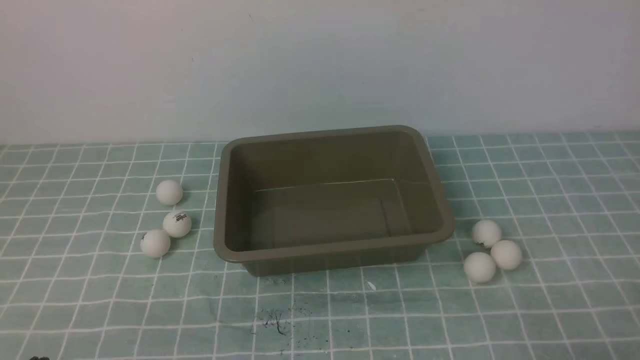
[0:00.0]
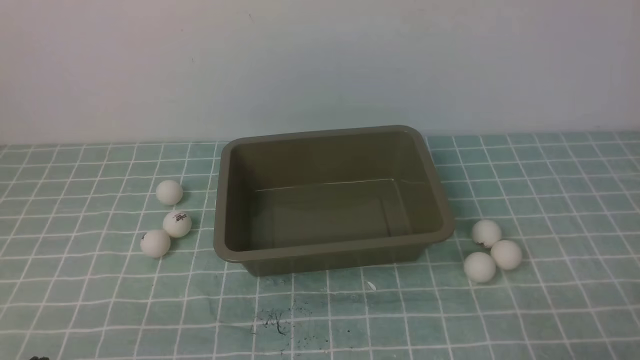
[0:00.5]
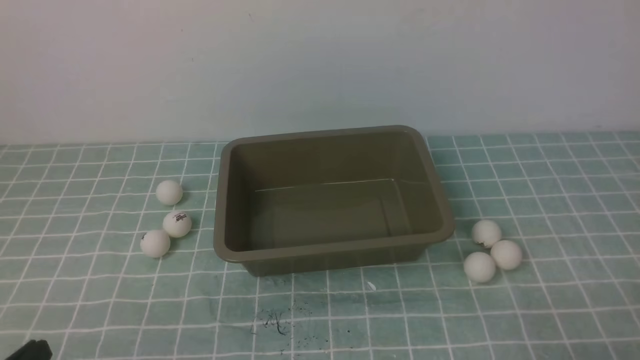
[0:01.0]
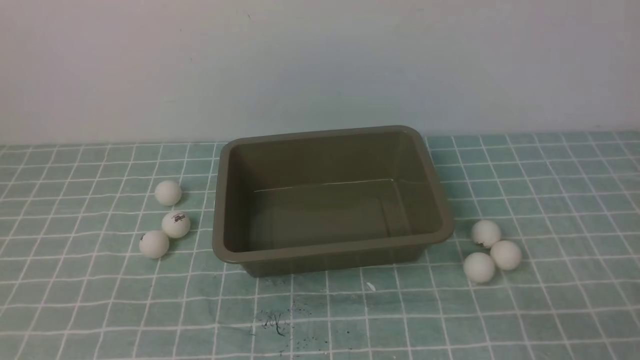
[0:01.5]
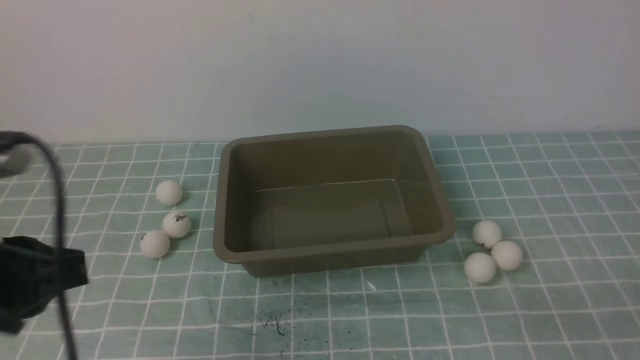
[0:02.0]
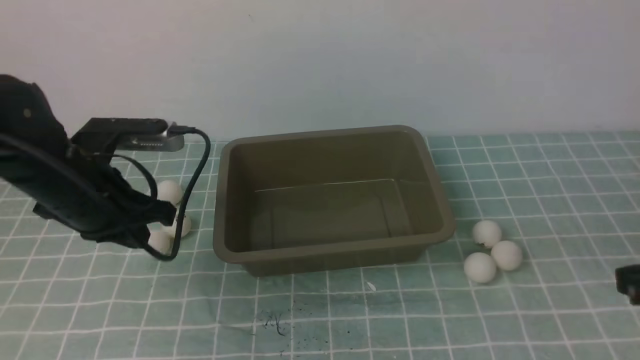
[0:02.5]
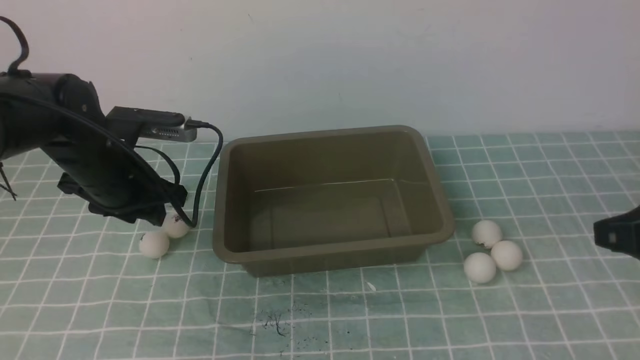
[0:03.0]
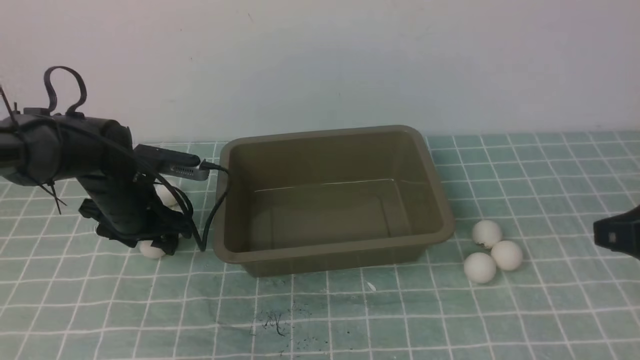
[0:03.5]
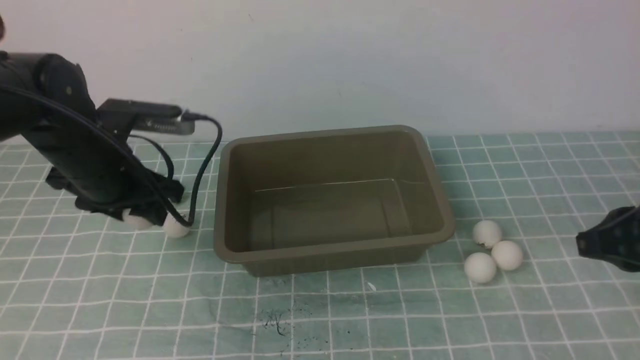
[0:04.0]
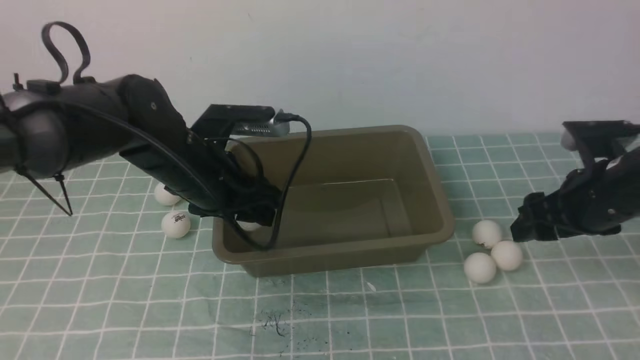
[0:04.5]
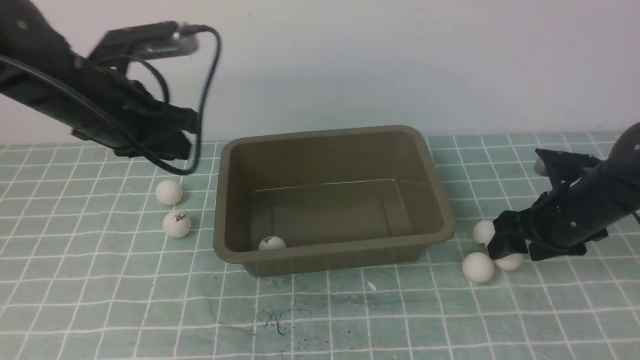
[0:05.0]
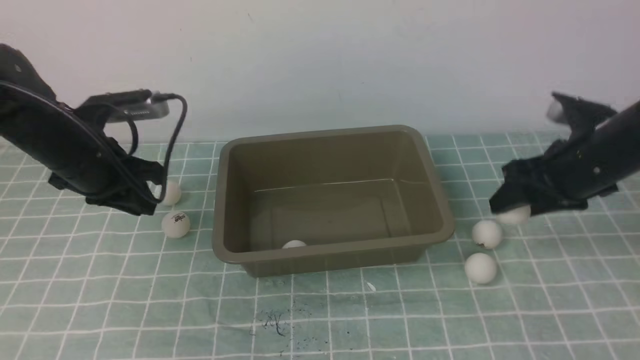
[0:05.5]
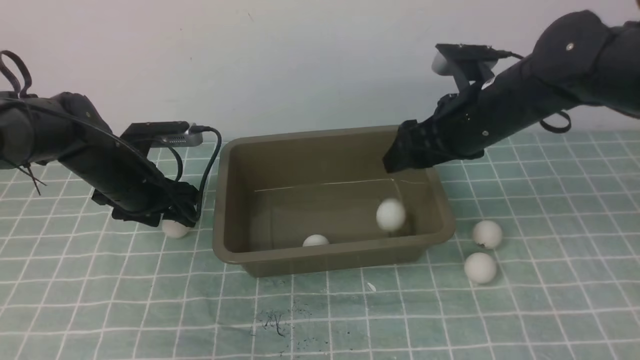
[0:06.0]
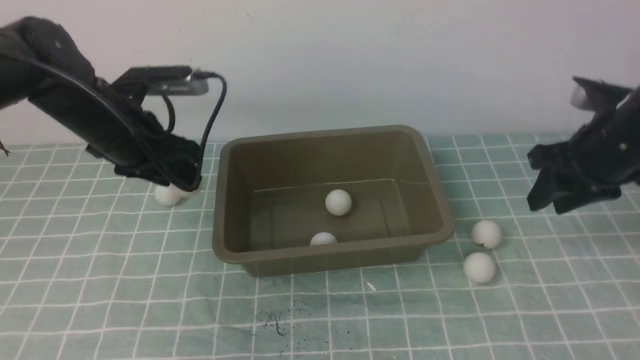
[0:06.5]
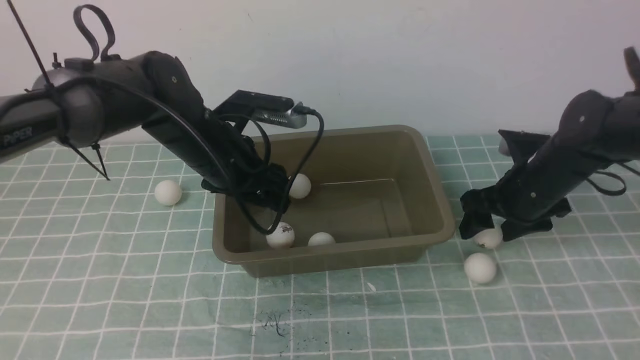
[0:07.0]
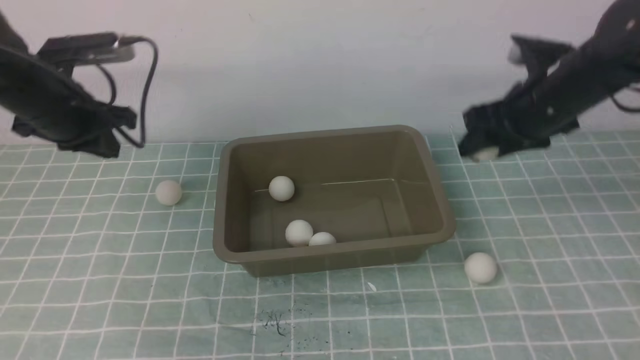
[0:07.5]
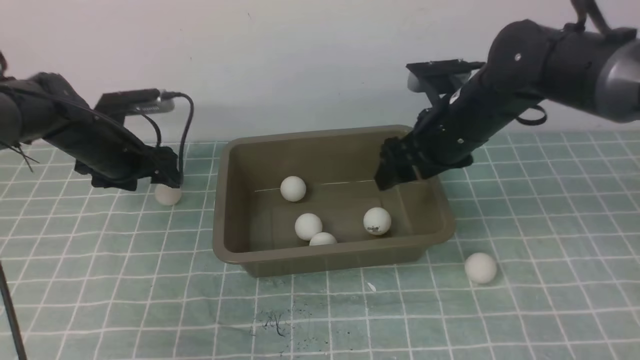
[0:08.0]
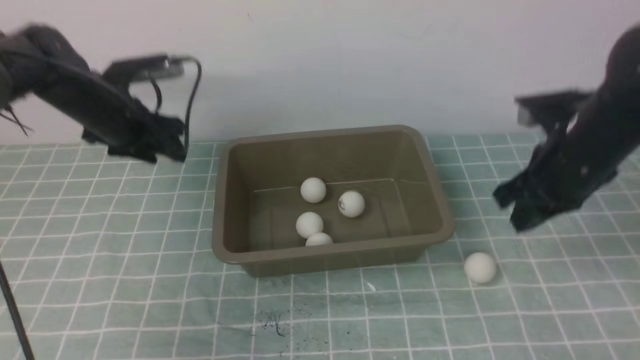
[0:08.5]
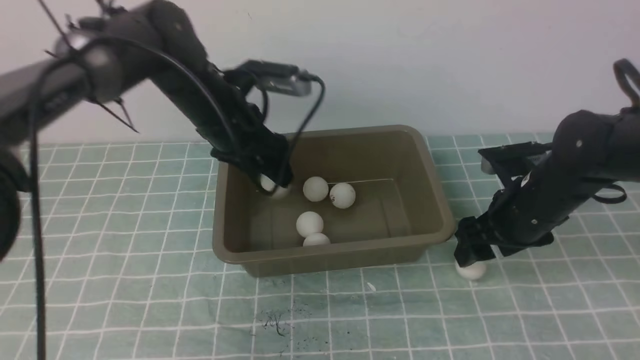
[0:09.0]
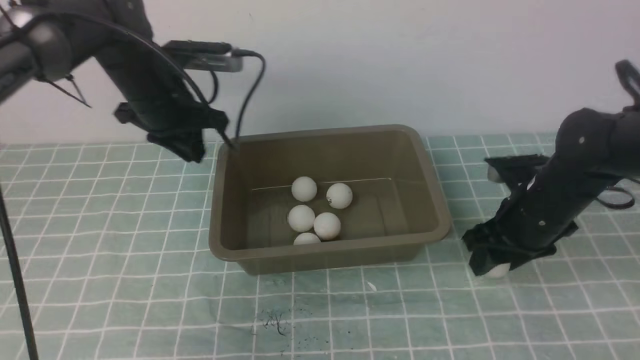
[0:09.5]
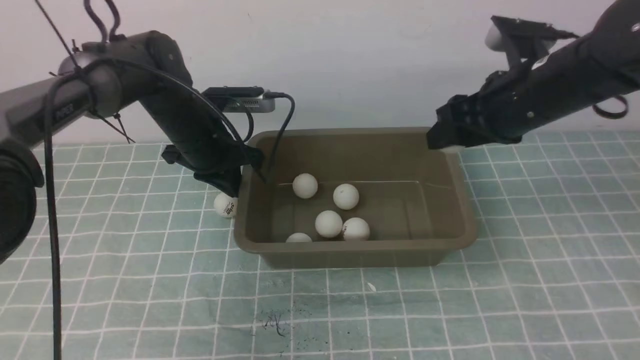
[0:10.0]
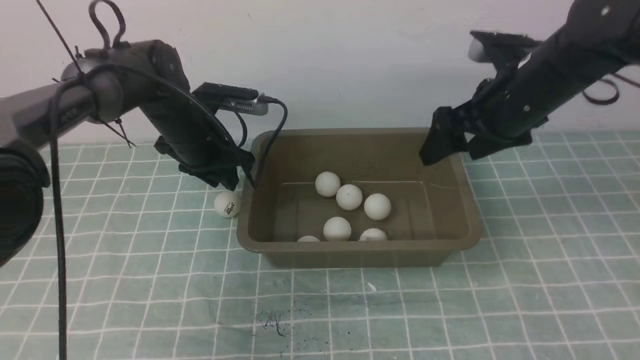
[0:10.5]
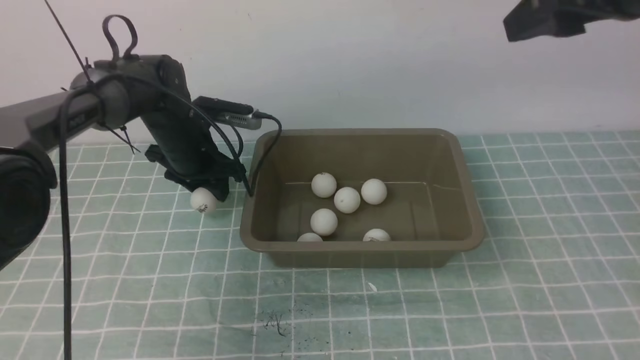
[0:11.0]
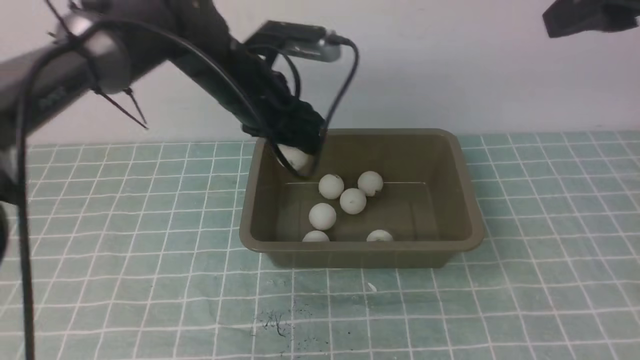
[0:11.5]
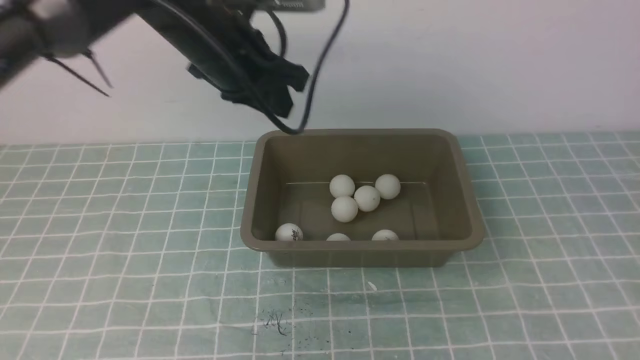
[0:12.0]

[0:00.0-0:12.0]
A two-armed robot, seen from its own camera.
Step, 0:00.0 to 0:04.0: use the left arm to clamp the table tennis ball closest to it.
Step, 0:06.5 to 0:07.0: use the left arm to put the table tennis ball into the box.
Step, 0:08.5 to 0:09.0: use the left arm to put the table tennis ball into the box.
Step, 0:10.5 to 0:11.0: use the left arm to clamp the table tennis ball closest to it.
0:00.0 to 0:02.0: The left gripper moves upward and forward, some 15 cm.
0:02.0 to 0:04.0: The two grippers go some 20 cm forward. The left gripper opens its fingers.
0:04.0 to 0:06.0: The right gripper heads forward and to the left, covering roughly 20 cm, and opens its fingers. The left gripper travels downward and forward by some 10 cm, reaches about 5 cm to the right, then returns, and closes, then reopens.
0:06.0 to 0:08.0: The right gripper travels to the right and back again, roughly 10 cm each way; the left gripper moves about 10 cm to the right and comes back, and closes, then opens again.
0:08.0 to 0:10.0: The left gripper heads to the right, covering approximately 10 cm, and closes its fingers. Meanwhile the right gripper moves approximately 10 cm downward and comes back, and closes, then opens again.
0:10.0 to 0:12.0: The right gripper is displaced backward and upward by about 35 cm, and closes its fingers. Meanwhile the left gripper shifts roughly 15 cm upward, to the right and backward, and opens its fingers.

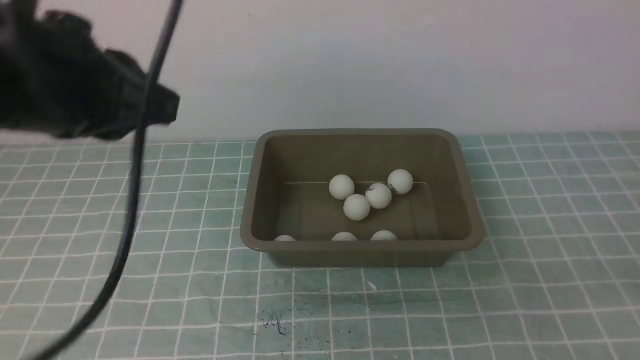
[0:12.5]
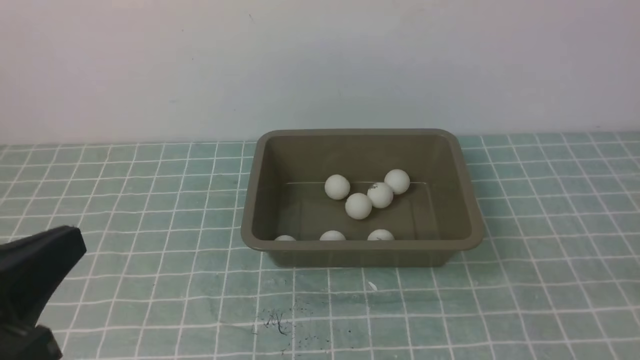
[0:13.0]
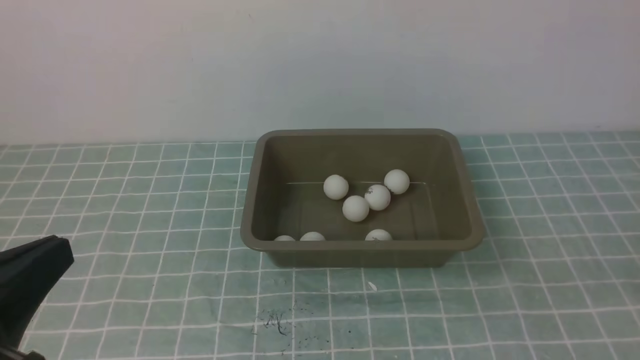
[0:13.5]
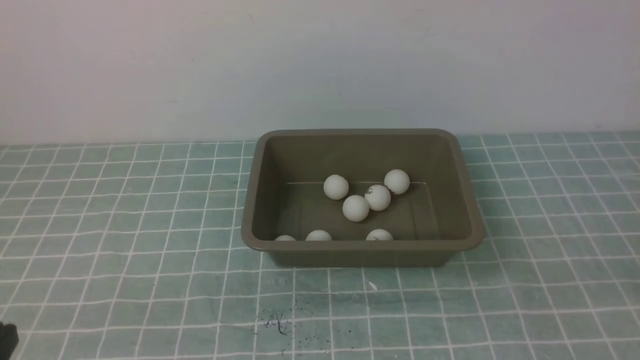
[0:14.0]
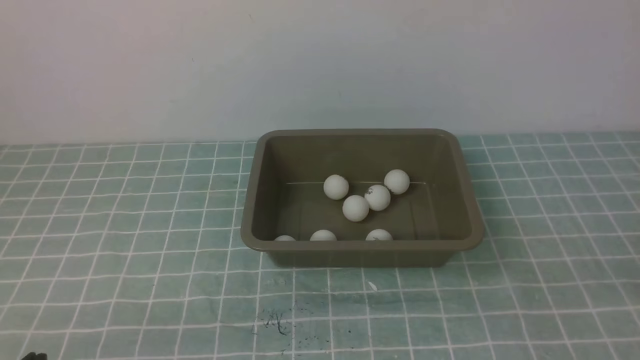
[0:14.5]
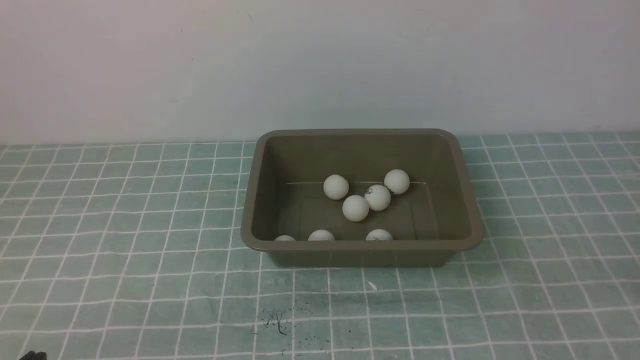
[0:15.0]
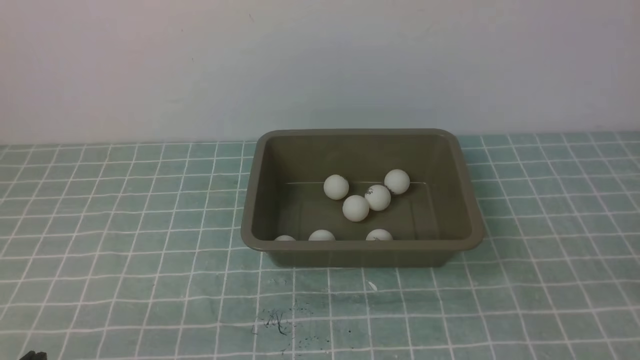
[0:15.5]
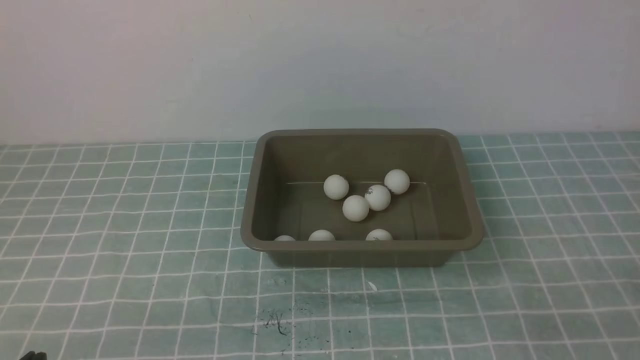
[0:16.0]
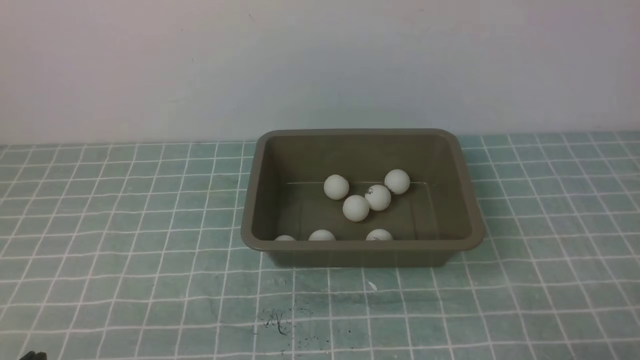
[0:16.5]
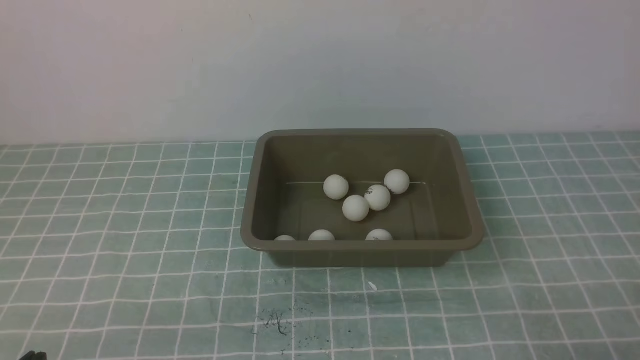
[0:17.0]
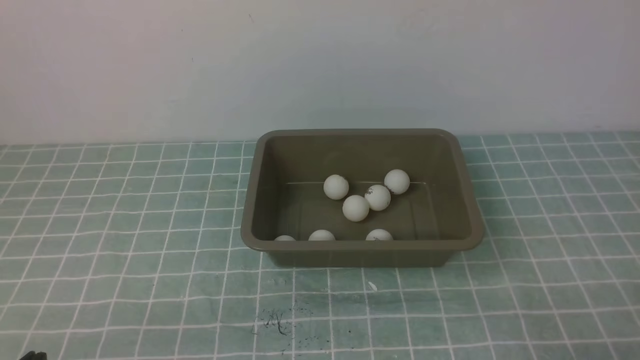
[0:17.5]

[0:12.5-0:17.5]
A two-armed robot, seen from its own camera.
0:12.5 to 0:15.0: The left gripper is displaced downward and backward by about 30 cm.

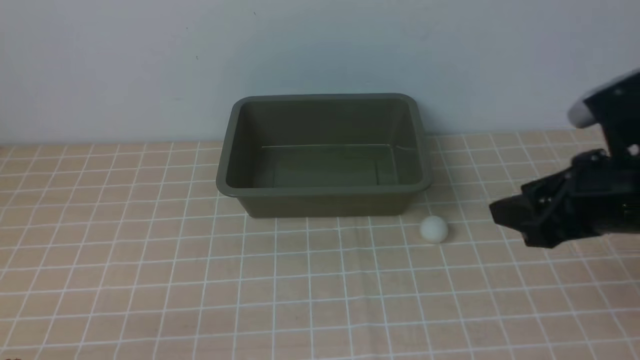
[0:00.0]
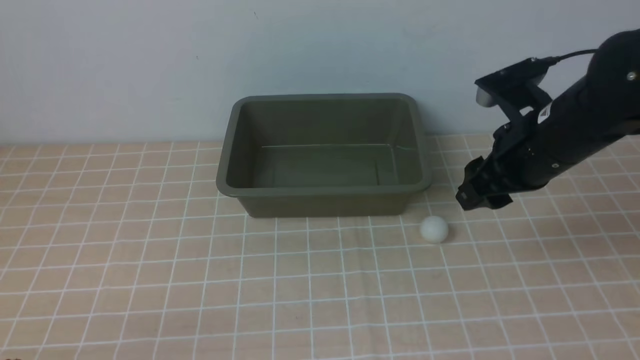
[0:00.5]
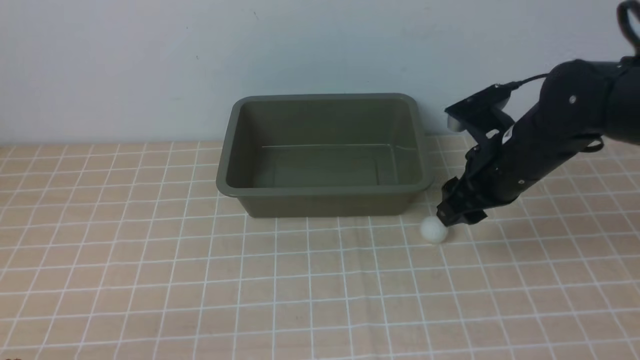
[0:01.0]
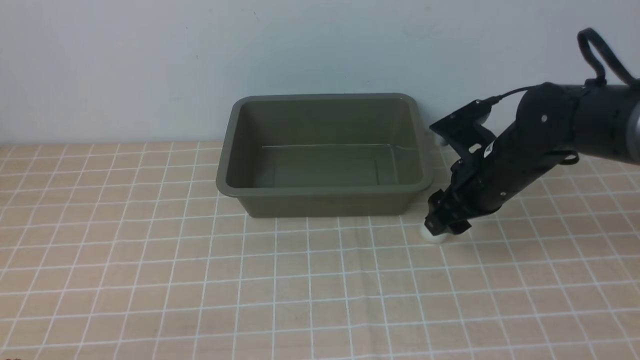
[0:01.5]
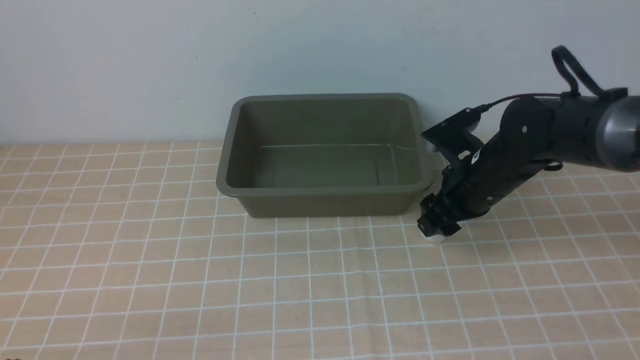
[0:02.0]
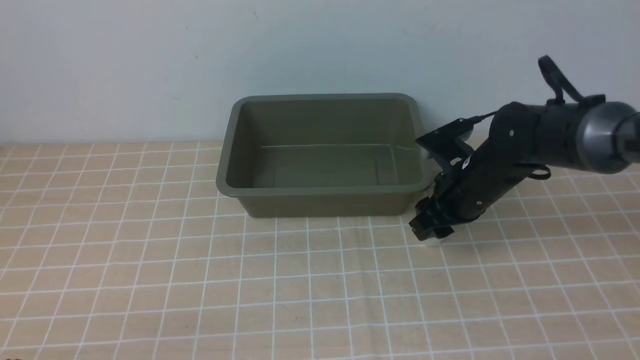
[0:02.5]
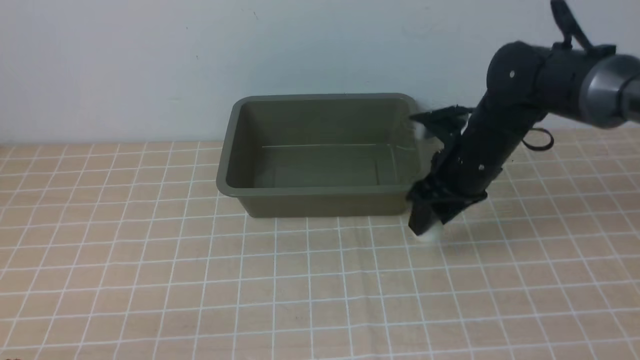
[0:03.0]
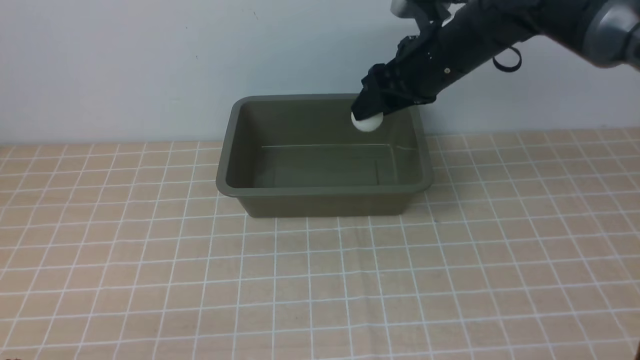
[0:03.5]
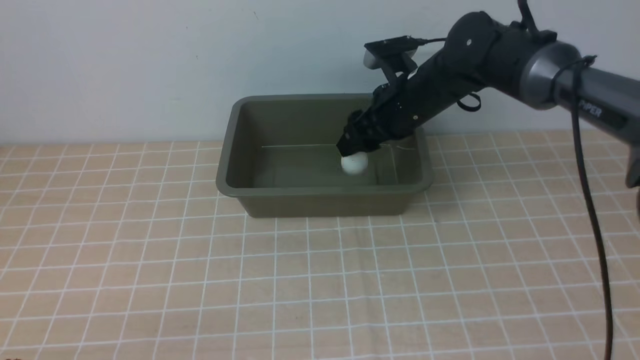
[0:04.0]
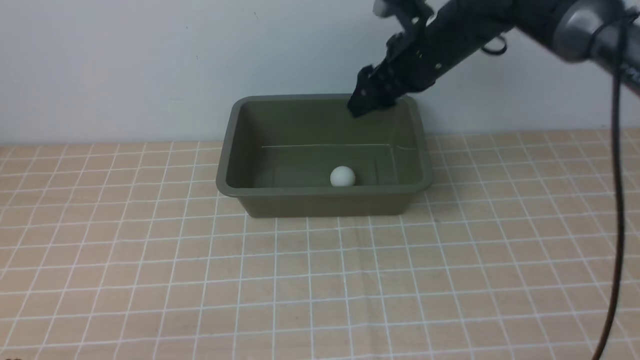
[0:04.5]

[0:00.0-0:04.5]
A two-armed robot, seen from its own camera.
Step, 0:00.0 to 0:02.5: use the right arm to clamp the table tennis ball closest to it.
Step, 0:03.5 to 0:04.0: use the right arm to put the table tennis ball into the box.
0:00.0 to 0:02.0: The right gripper moves forward, downward and to the left, about 20 cm.
0:02.0 to 0:04.5: The right gripper travels upward, forward and to the left by about 15 cm.
